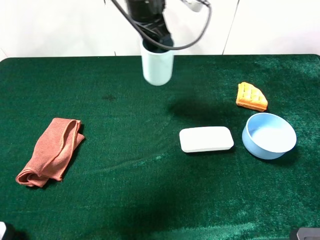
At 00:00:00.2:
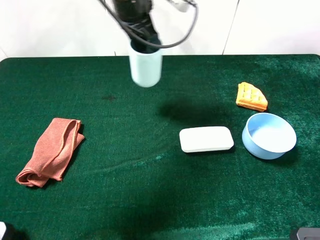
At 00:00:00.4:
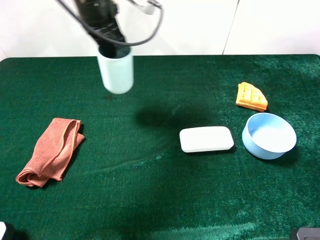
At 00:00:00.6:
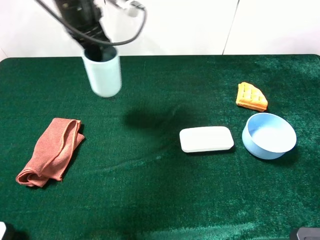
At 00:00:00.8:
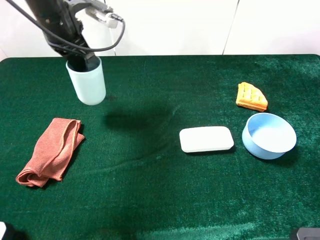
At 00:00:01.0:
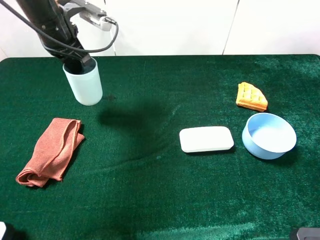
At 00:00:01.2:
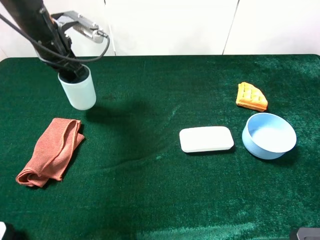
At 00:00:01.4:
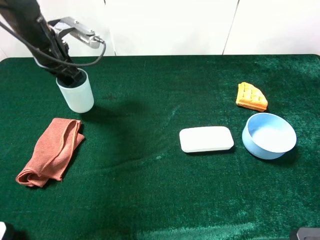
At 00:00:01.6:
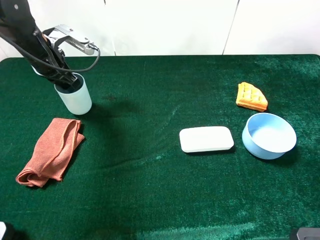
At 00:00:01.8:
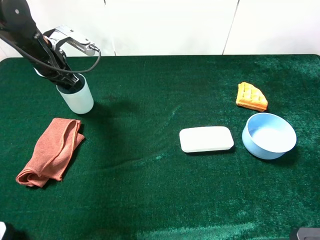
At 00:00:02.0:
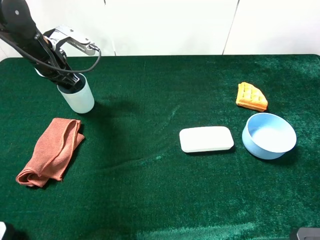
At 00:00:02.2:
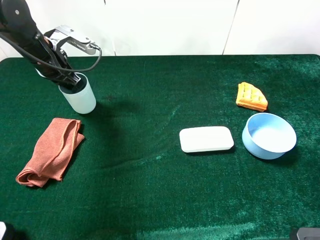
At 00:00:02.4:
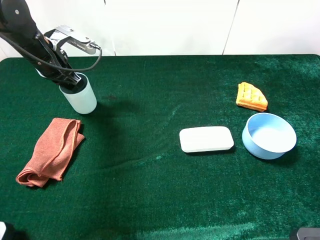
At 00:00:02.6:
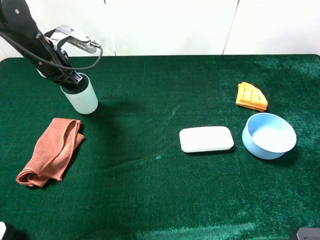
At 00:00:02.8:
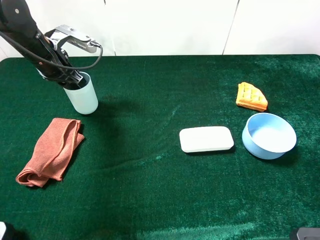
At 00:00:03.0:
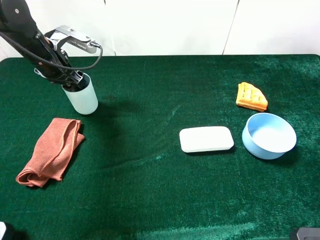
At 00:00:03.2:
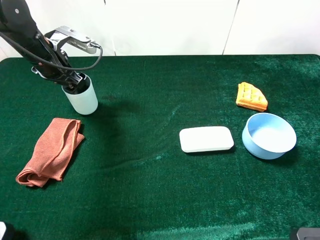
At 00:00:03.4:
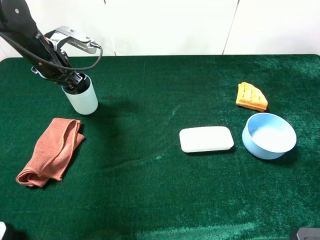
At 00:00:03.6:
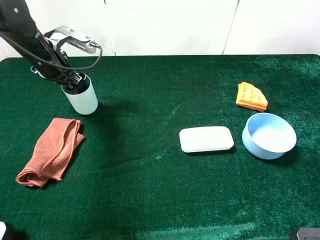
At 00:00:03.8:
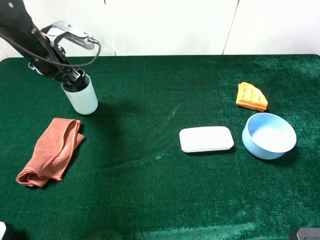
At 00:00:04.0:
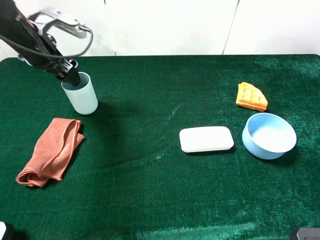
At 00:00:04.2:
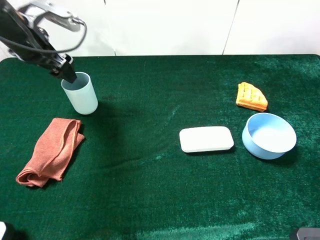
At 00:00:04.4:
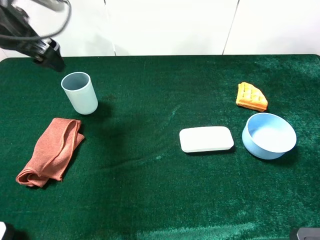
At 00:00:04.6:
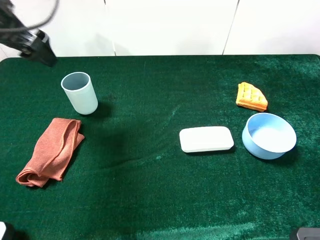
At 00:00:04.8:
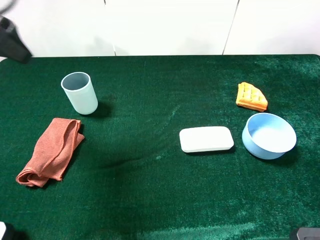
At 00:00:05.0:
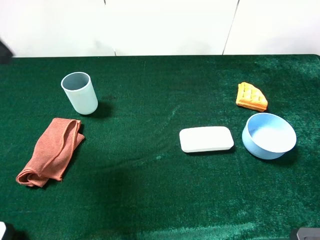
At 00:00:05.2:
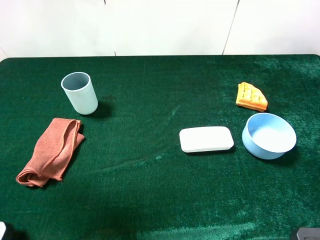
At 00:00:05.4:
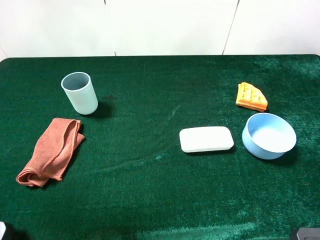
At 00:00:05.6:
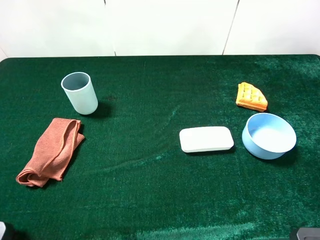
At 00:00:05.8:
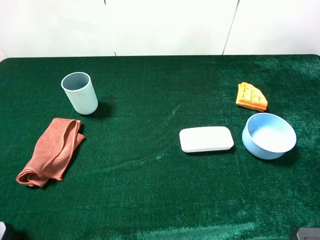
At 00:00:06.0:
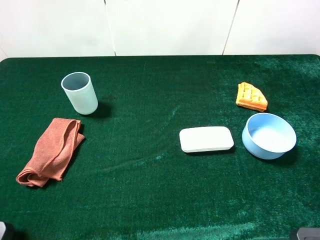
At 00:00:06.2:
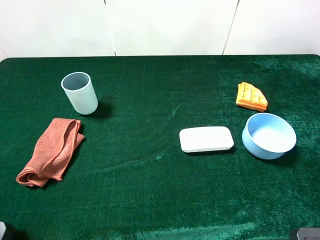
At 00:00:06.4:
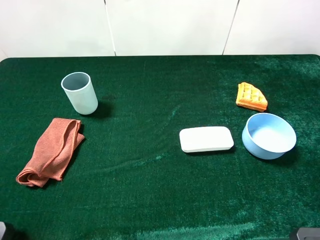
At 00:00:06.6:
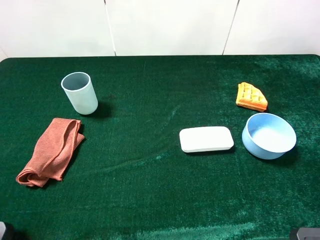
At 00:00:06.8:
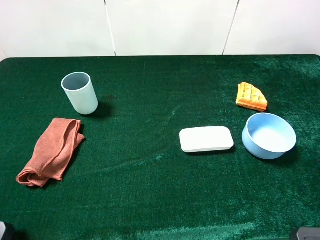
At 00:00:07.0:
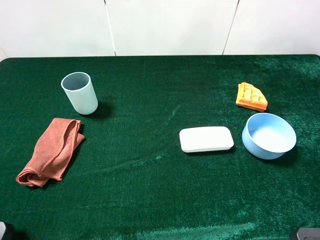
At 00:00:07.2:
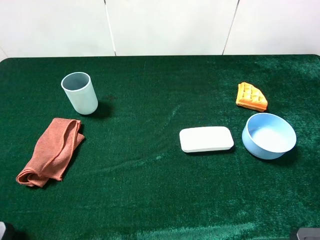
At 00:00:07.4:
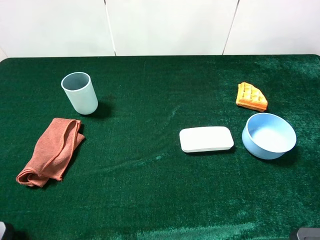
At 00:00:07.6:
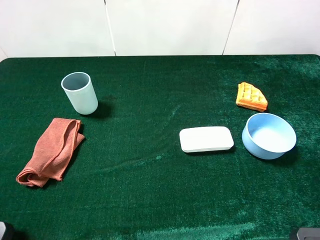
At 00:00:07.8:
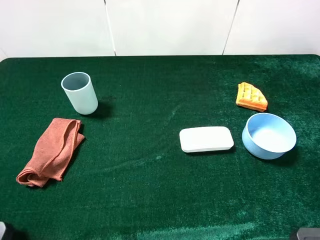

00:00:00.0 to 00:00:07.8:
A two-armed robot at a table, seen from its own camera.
Task of the whole recording: the gripper move the object.
Step, 00:00:00.0 to 00:00:04.2: Place the cyan cup on the table with the left gripper.
00:00:00.0 to 00:00:01.6: The left gripper heads to the left and downward, covering approximately 25 cm.
00:00:01.6 to 00:00:03.2: The left gripper opens up.
00:00:03.2 to 00:00:04.6: The left gripper travels upward and backward by roughly 15 cm.
00:00:04.6 to 00:00:06.2: The left gripper goes roughly 25 cm backward.

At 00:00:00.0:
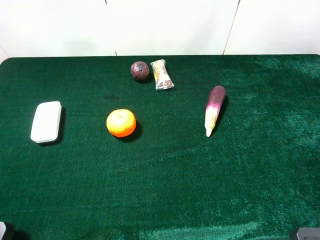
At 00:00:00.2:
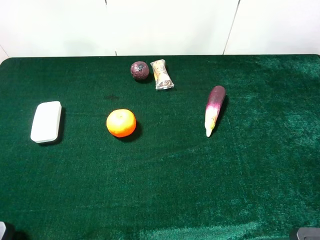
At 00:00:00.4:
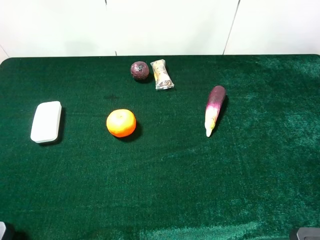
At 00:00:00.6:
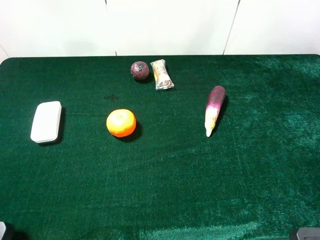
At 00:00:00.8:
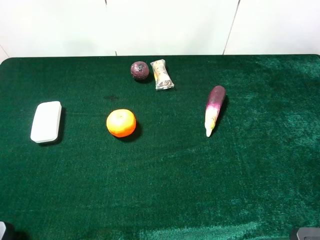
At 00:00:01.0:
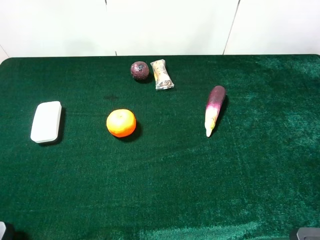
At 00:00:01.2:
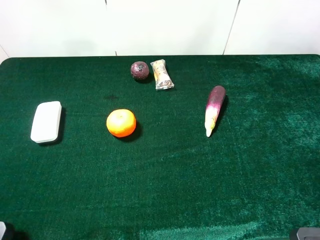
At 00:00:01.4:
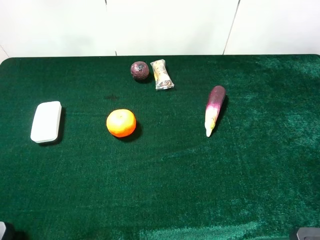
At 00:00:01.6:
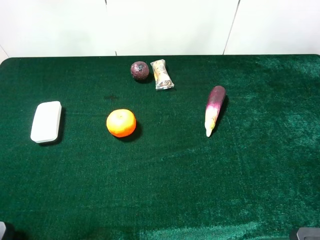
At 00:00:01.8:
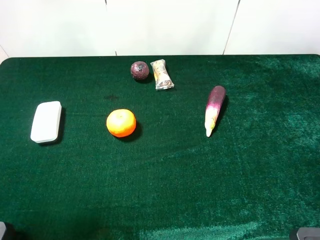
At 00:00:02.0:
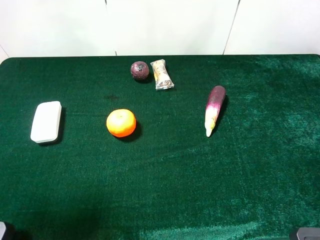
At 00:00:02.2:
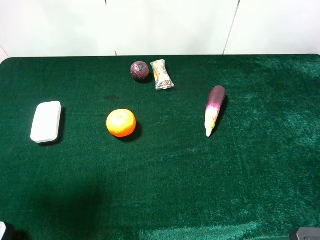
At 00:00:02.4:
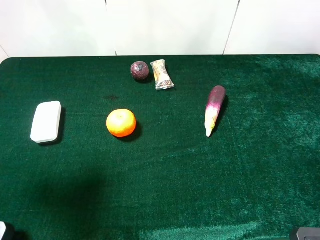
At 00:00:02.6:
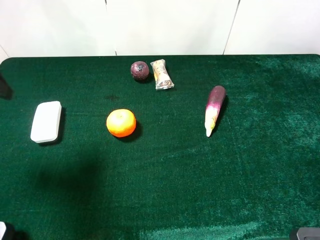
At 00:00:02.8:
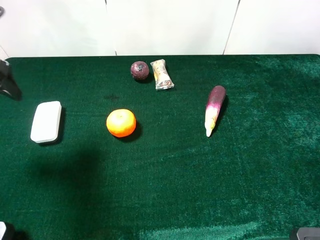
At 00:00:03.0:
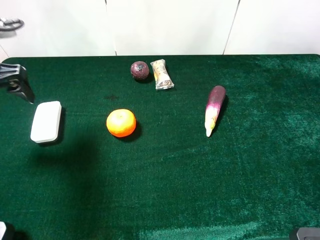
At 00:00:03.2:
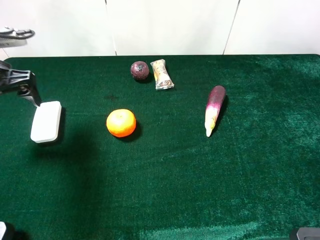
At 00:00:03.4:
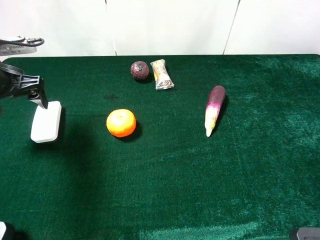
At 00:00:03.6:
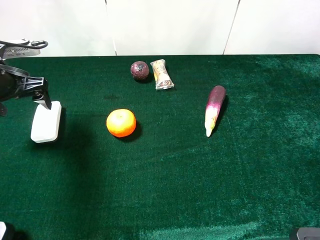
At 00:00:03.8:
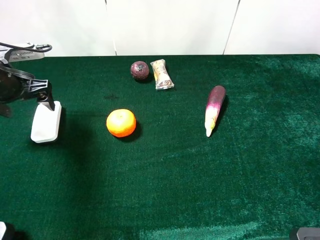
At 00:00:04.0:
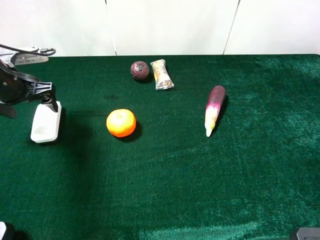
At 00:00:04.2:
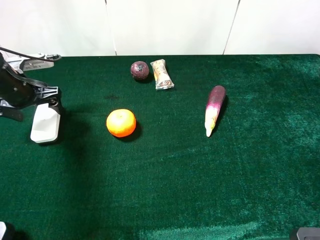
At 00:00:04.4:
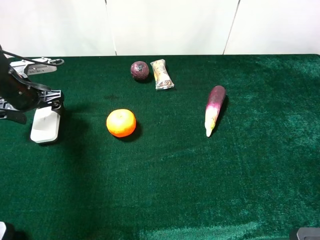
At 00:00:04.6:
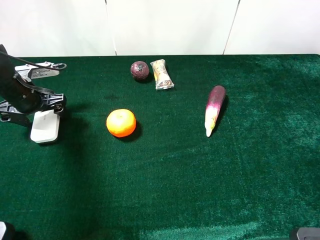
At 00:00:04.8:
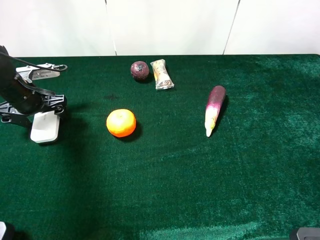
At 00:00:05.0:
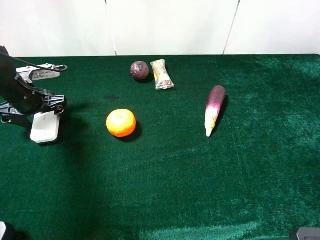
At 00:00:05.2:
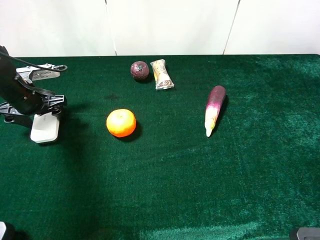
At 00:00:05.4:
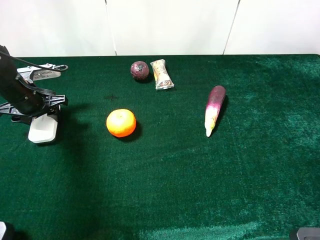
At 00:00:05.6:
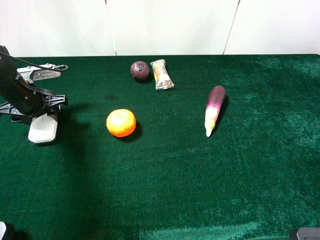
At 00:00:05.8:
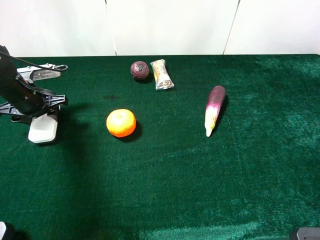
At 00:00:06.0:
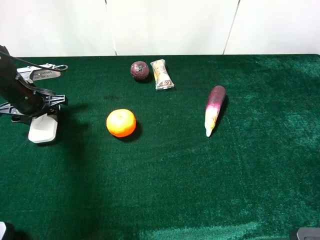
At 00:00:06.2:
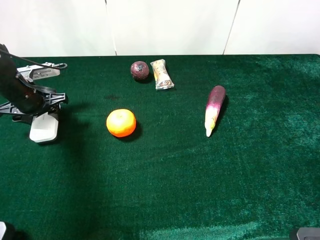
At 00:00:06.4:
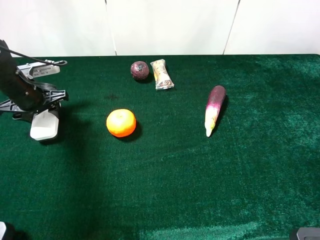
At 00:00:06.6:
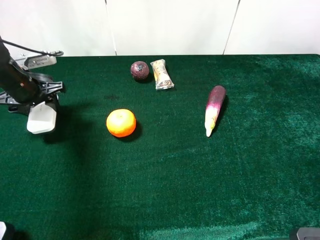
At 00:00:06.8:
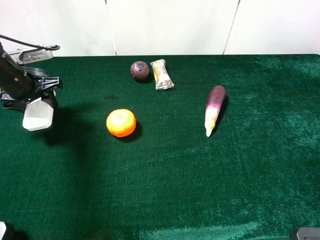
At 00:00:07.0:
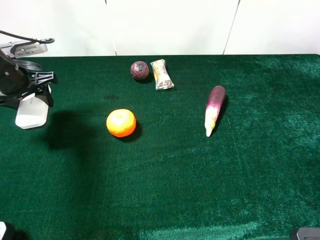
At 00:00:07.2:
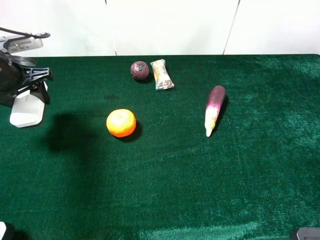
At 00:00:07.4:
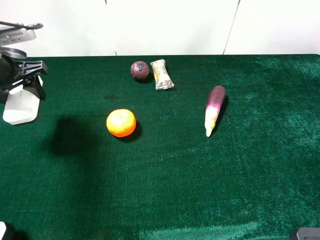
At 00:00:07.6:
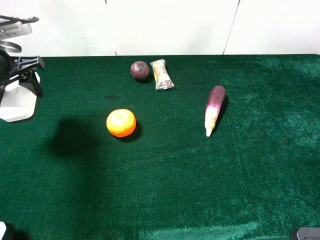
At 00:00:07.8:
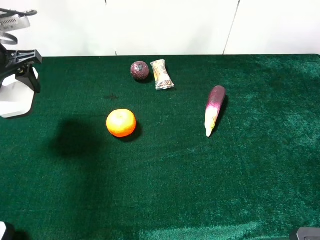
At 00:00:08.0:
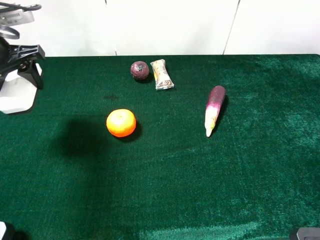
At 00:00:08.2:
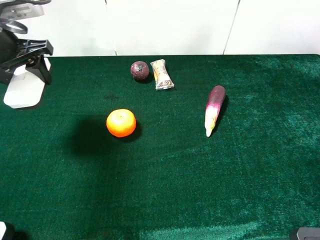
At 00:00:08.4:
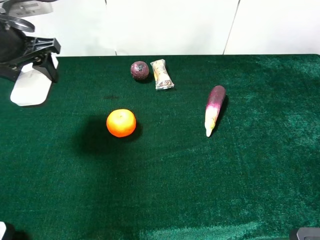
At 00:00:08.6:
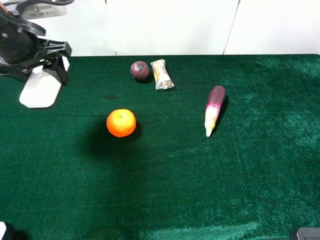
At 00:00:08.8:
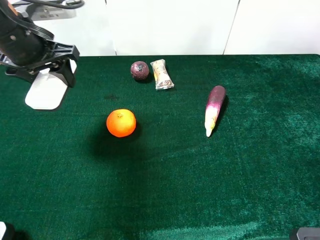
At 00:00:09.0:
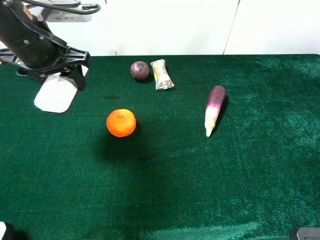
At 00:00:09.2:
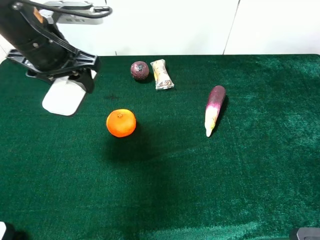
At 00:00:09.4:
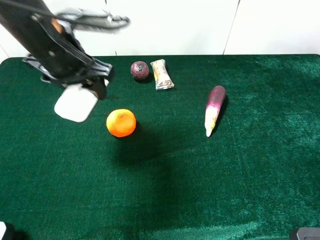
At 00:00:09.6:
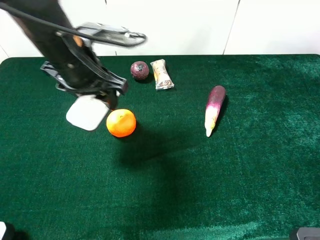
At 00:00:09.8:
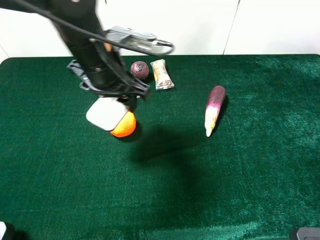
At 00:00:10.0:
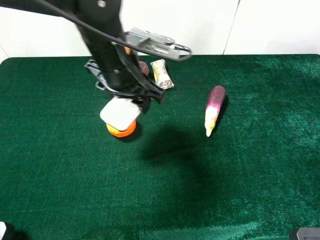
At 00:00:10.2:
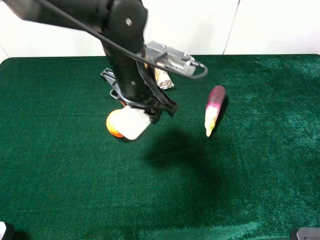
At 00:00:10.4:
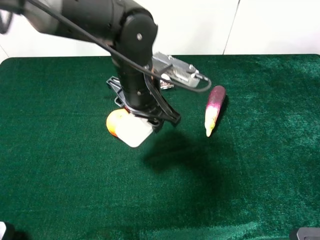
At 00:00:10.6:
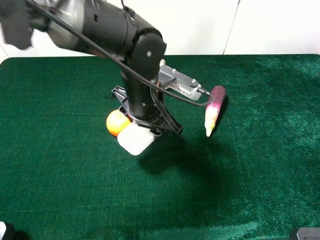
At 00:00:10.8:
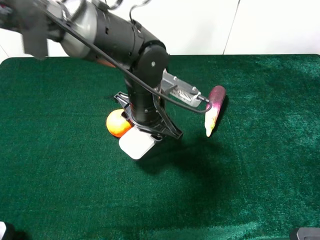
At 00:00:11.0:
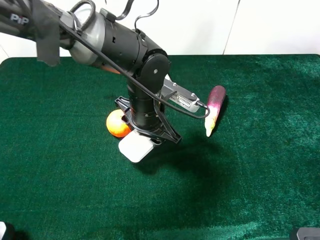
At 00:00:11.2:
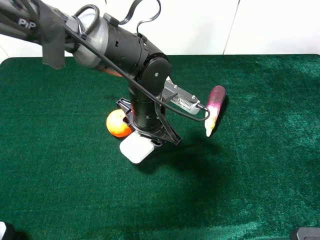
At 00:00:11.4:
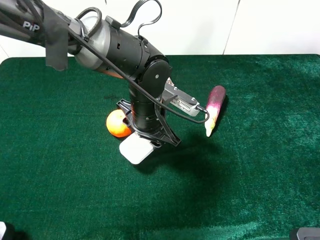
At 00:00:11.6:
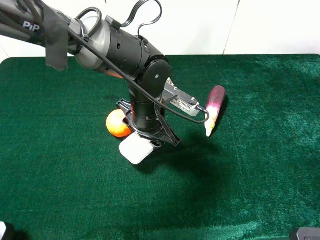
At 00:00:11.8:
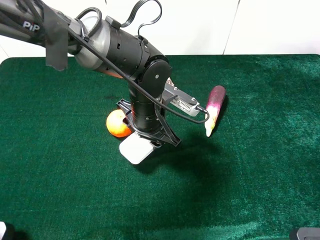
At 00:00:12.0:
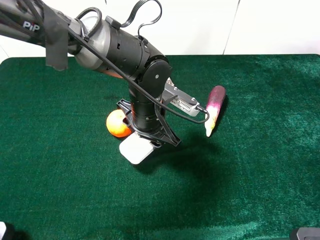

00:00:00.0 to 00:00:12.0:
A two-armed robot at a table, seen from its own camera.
Task of the whole recording: the gripper move the object.
Step, 00:00:00.0 to 00:00:06.2: Grasp the white blackboard earser with the left gripper.
00:00:01.6 to 00:00:03.0: The left gripper goes about 20 cm forward and downward.
00:00:03.0 to 00:00:04.4: The left gripper shifts some 15 cm downward and forward.
00:00:04.4 to 00:00:06.0: The left gripper closes its fingers.
00:00:06.0 to 00:00:07.6: The left gripper is displaced upward by approximately 10 cm.
00:00:07.6 to 00:00:09.0: The left gripper is displaced to the right by roughly 10 cm.
00:00:09.0 to 00:00:10.4: The left gripper moves to the right and downward, about 20 cm.
00:00:10.4 to 00:00:12.0: The left gripper moves downward, approximately 5 cm.

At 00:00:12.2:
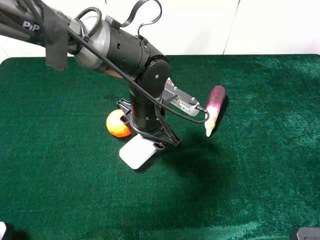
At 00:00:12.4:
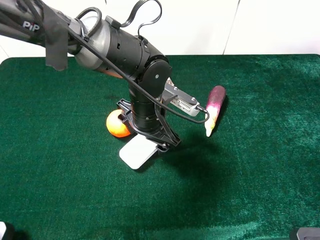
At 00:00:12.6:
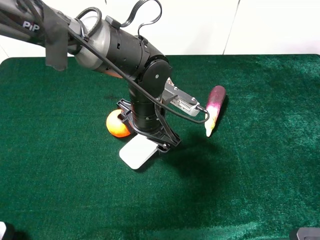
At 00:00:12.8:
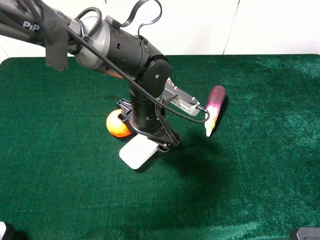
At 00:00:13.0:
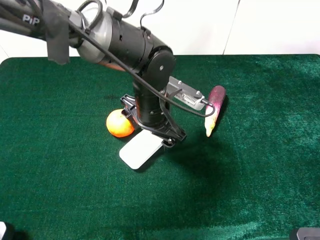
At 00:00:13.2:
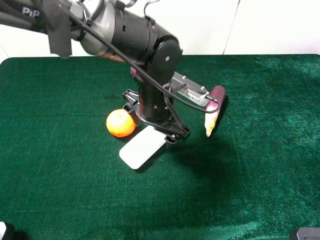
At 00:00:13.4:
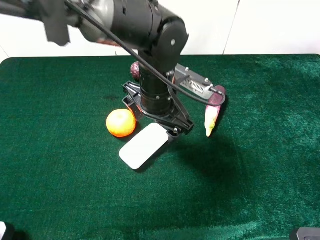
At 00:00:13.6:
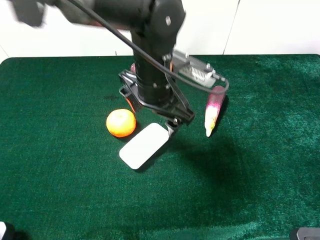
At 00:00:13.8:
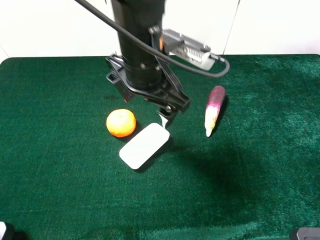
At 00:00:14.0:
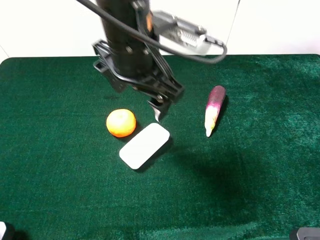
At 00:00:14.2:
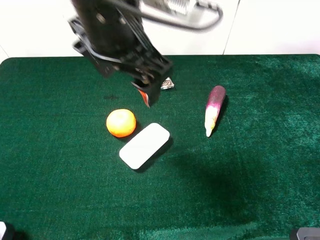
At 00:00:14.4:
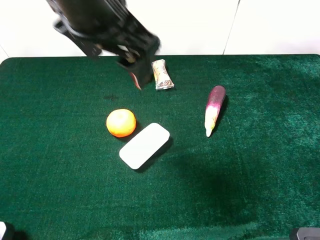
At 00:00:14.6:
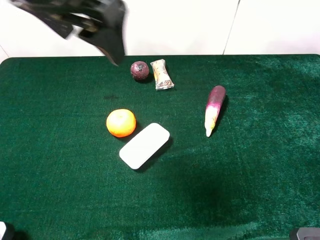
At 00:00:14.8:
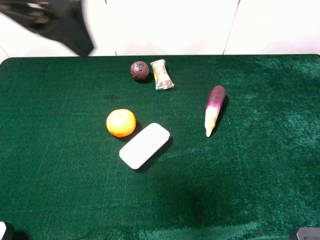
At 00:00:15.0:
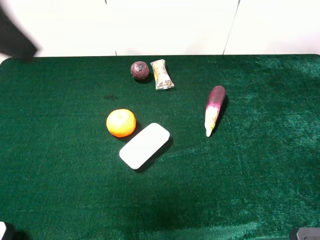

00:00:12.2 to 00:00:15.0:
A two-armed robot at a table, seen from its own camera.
Task of the whole recording: the gripper move the object.
00:00:12.2 to 00:00:13.6: The left gripper heads upward, covering approximately 10 cm.
00:00:13.6 to 00:00:15.0: The left gripper is displaced to the left, upward and backward by approximately 30 cm.
